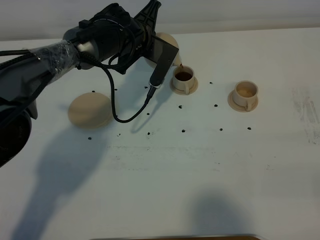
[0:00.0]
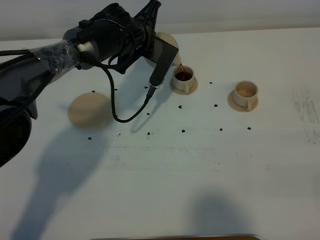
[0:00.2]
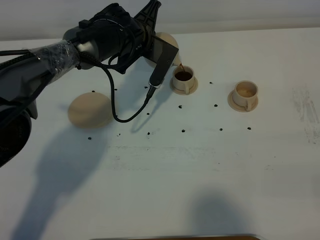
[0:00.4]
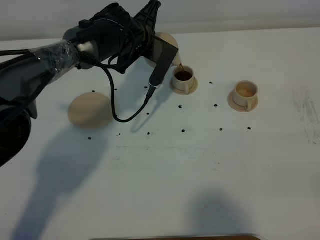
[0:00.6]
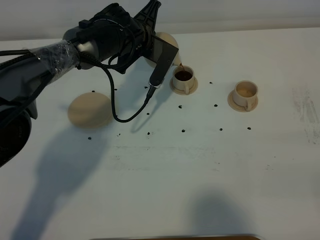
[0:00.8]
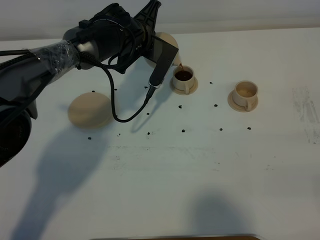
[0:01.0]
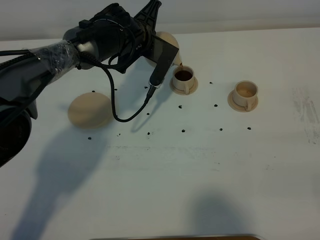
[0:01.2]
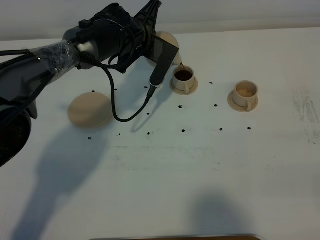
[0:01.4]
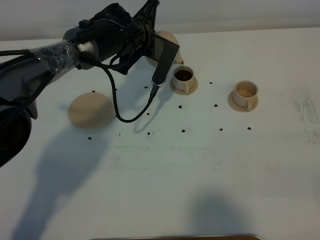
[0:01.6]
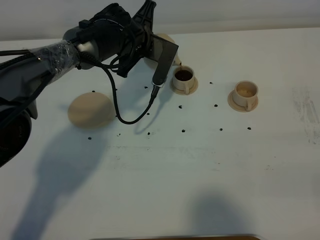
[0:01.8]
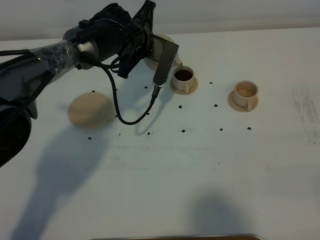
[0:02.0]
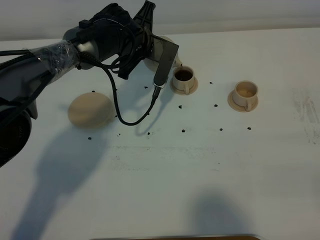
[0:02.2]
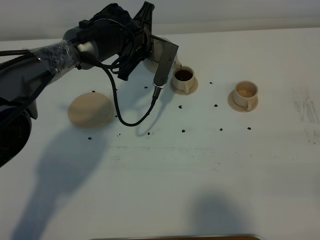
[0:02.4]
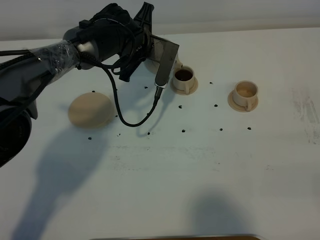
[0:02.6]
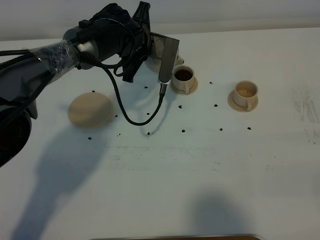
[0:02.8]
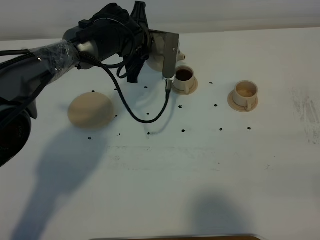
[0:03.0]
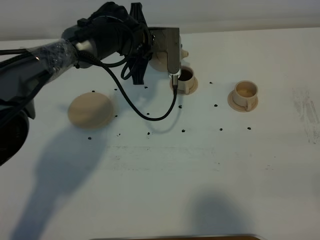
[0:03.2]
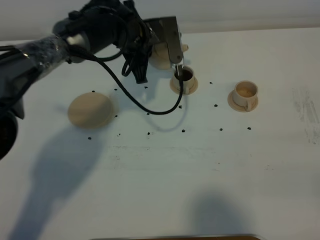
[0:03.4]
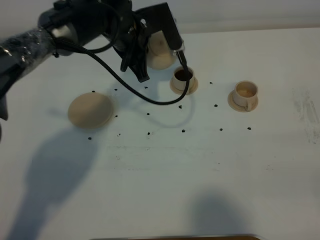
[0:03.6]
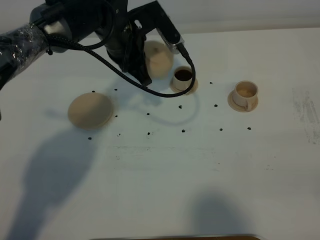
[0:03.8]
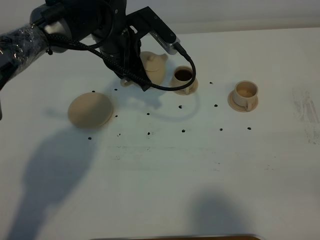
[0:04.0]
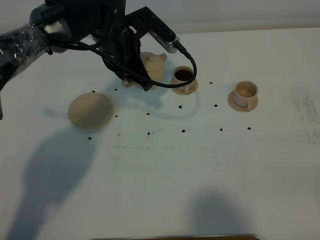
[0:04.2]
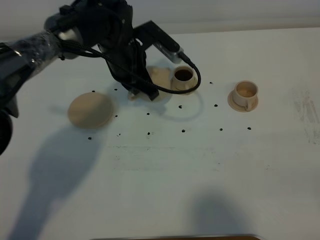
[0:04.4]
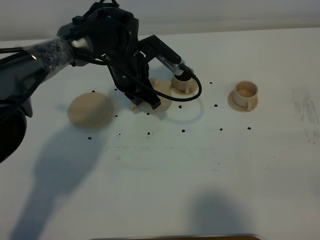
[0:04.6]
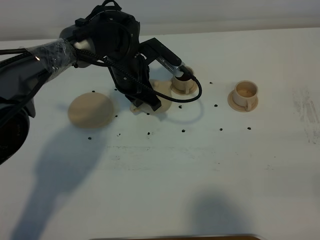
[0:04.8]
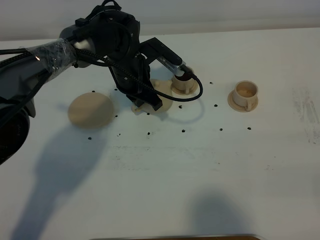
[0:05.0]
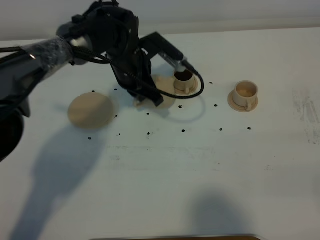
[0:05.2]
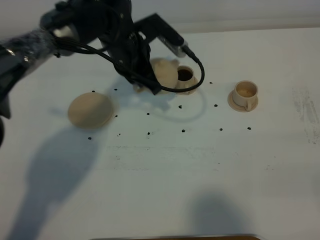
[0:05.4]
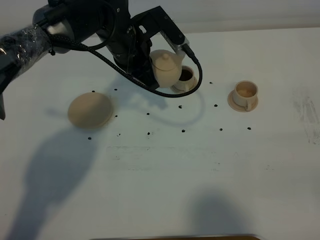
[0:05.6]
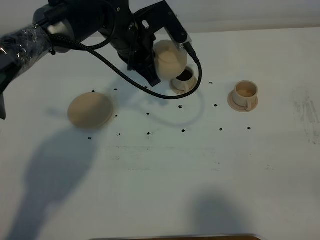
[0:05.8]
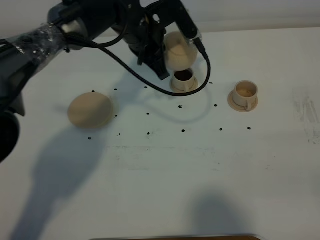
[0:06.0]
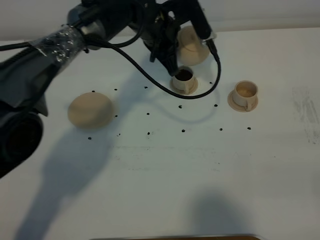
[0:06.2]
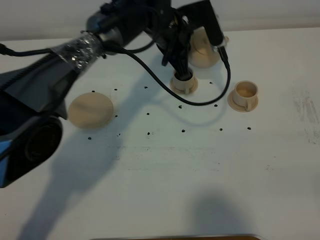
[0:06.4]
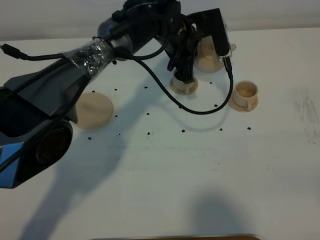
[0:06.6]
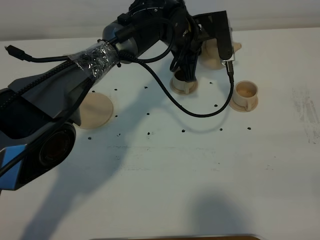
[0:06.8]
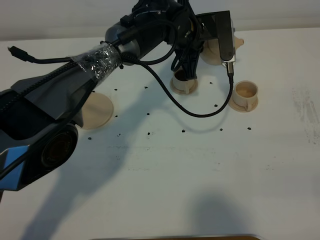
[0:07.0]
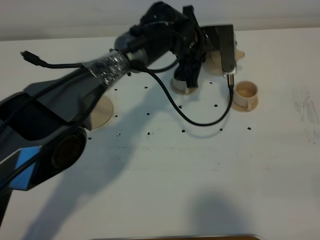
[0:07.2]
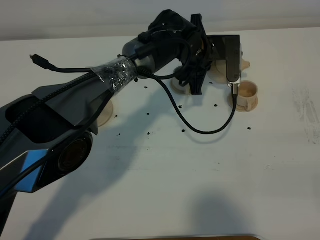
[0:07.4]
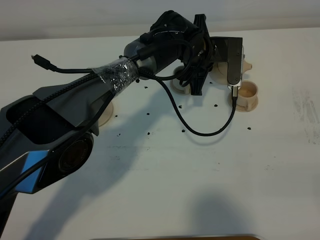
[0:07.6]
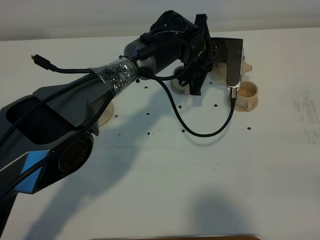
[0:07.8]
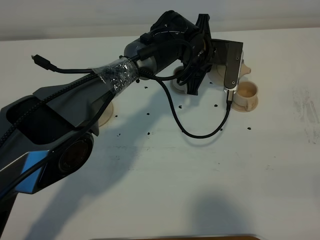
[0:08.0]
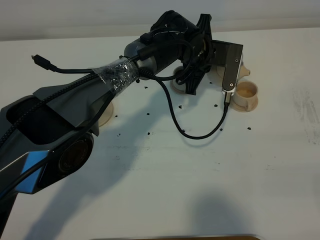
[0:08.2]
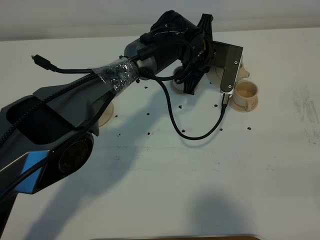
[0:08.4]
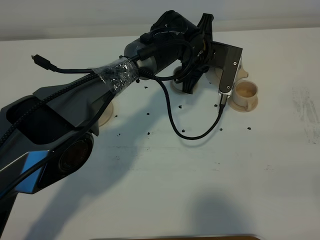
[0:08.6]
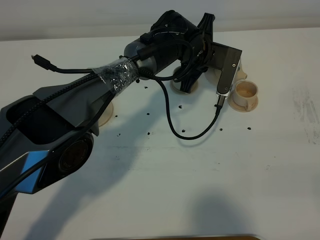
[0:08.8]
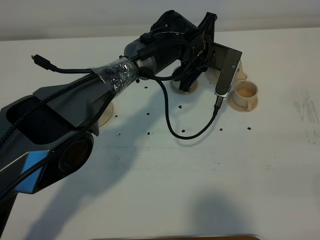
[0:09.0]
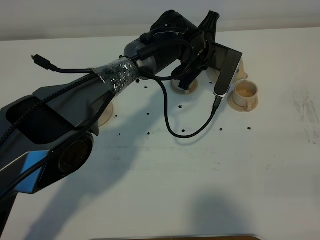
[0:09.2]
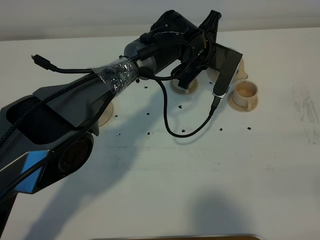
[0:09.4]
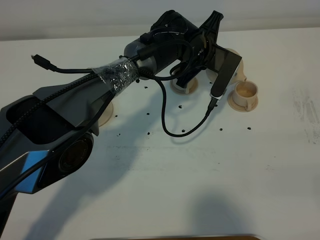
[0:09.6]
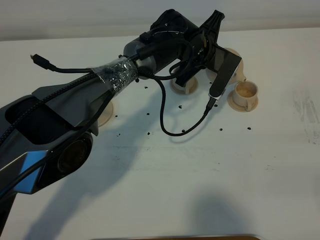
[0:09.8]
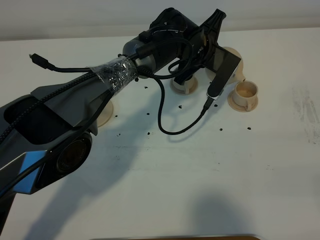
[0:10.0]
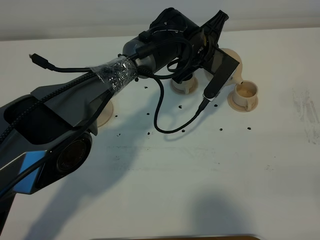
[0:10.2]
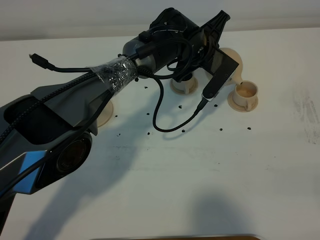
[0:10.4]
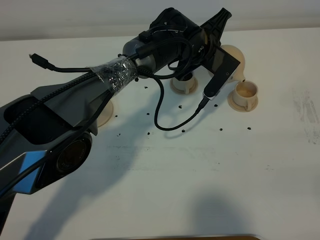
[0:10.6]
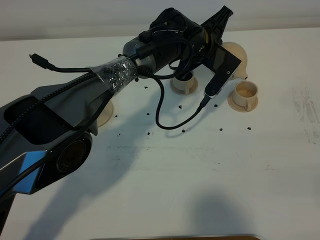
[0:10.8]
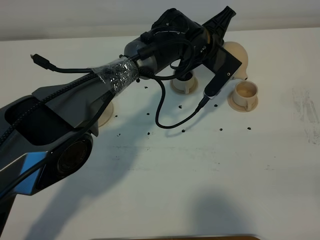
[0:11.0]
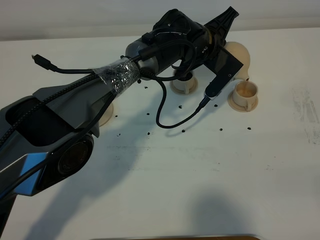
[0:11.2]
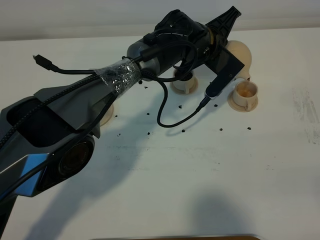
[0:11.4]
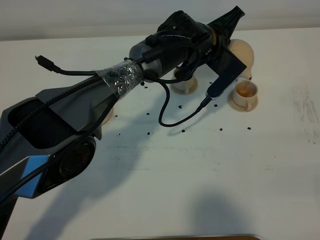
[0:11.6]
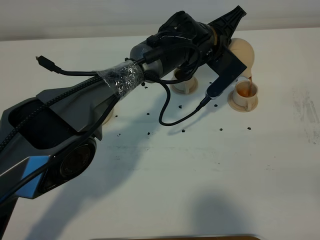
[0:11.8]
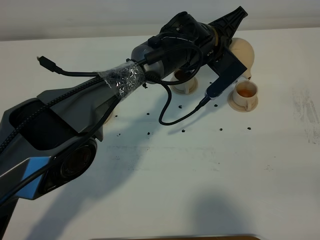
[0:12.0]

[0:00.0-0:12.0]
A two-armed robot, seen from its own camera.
Task of the whole recording: grasp the brown teapot and pour the tea into the two brown teacups one by one, put the brown teapot back in its original place.
0:00.0 to 0:01.6: Neither gripper changes place.
0:04.4 to 0:06.0: The left gripper shifts by about 5 cm.
0:06.0 to 0:07.6: The left gripper shifts some 10 cm to the right and downward.
0:07.6 to 0:09.0: The grippers make only small movements.
0:09.0 to 0:10.4: There are only small adjustments of the grippers.
0:10.4 to 0:12.0: The grippers make only small movements.

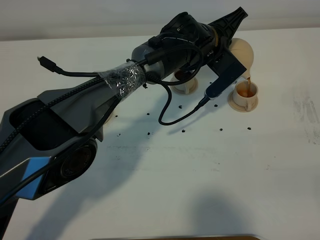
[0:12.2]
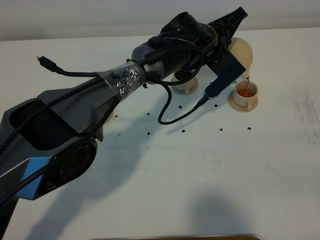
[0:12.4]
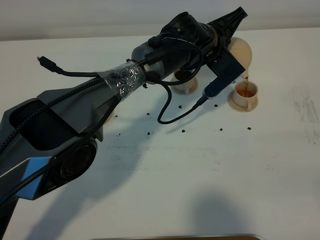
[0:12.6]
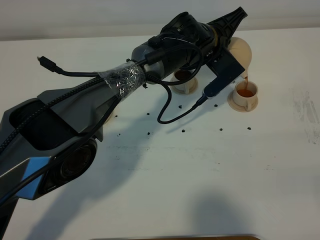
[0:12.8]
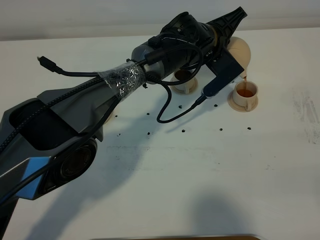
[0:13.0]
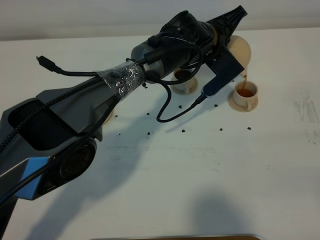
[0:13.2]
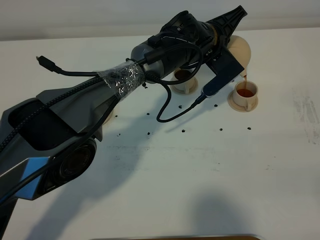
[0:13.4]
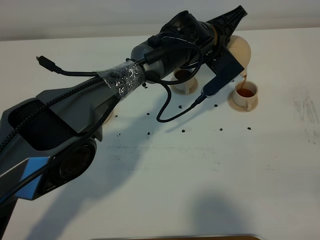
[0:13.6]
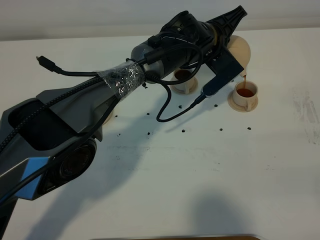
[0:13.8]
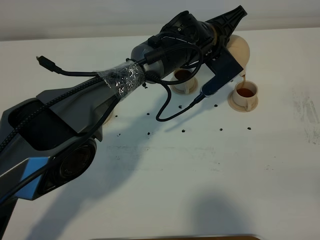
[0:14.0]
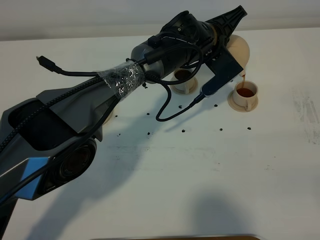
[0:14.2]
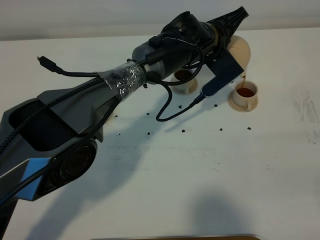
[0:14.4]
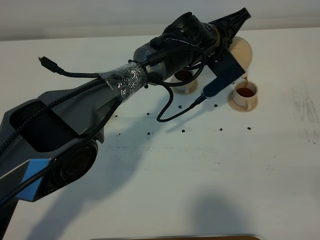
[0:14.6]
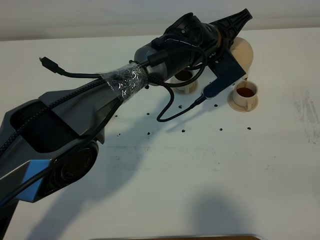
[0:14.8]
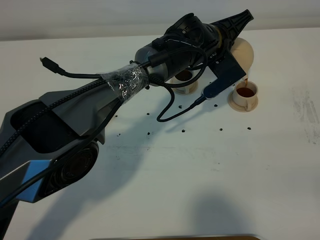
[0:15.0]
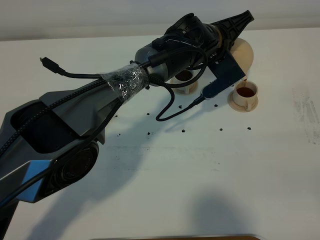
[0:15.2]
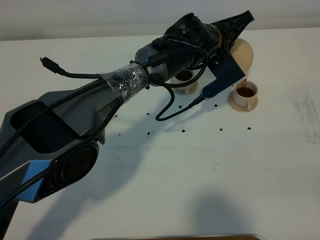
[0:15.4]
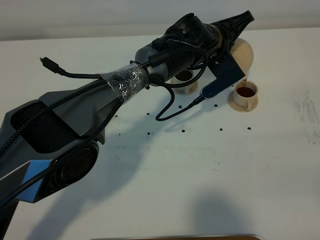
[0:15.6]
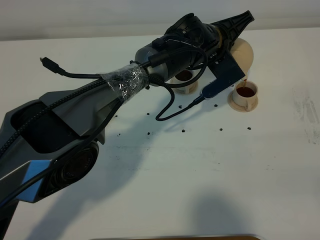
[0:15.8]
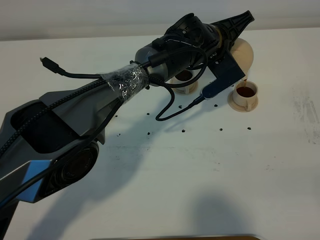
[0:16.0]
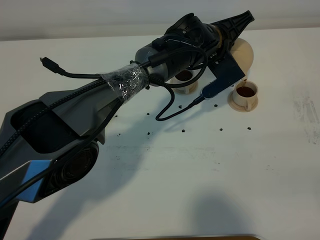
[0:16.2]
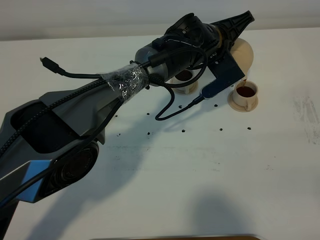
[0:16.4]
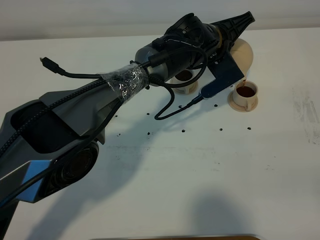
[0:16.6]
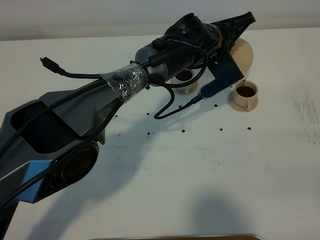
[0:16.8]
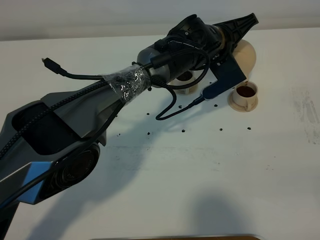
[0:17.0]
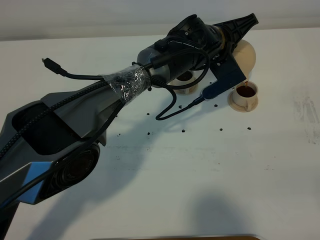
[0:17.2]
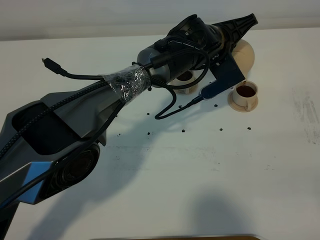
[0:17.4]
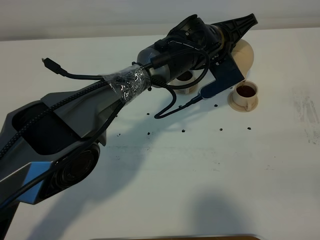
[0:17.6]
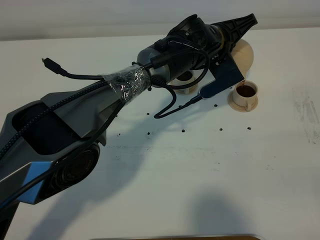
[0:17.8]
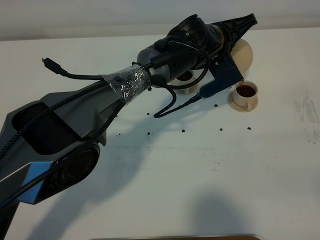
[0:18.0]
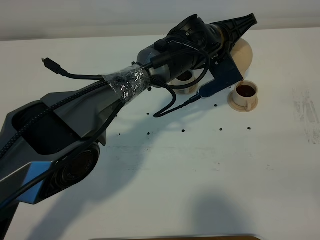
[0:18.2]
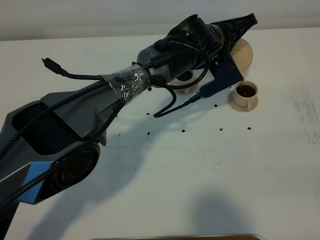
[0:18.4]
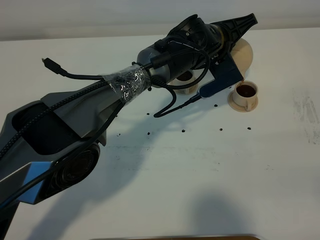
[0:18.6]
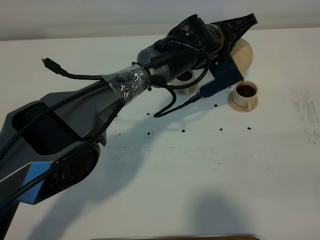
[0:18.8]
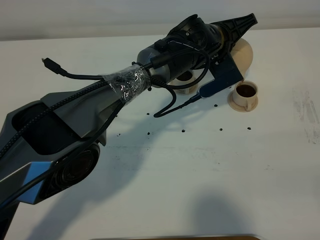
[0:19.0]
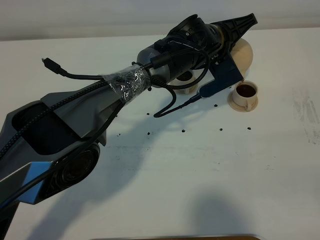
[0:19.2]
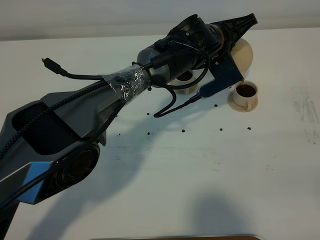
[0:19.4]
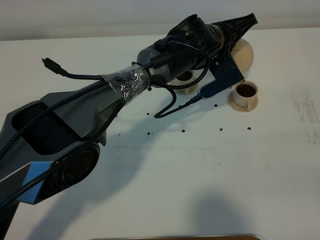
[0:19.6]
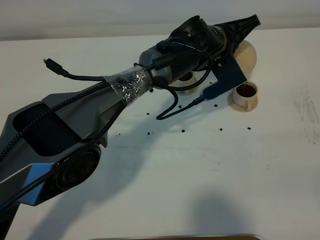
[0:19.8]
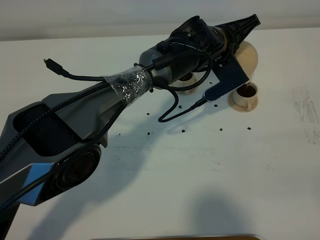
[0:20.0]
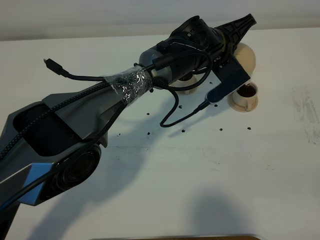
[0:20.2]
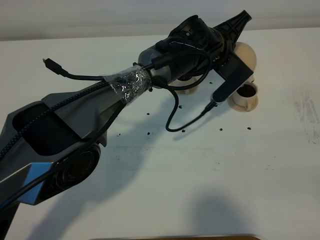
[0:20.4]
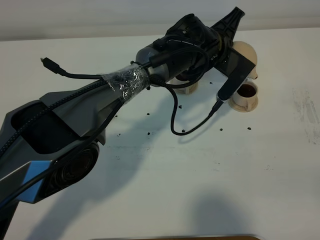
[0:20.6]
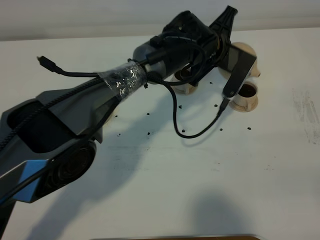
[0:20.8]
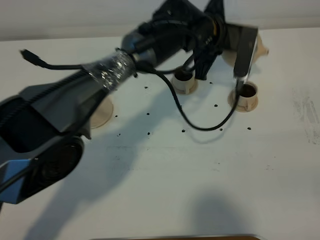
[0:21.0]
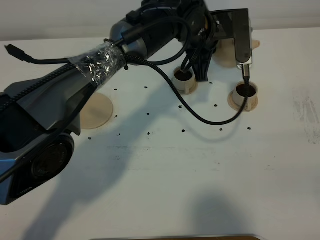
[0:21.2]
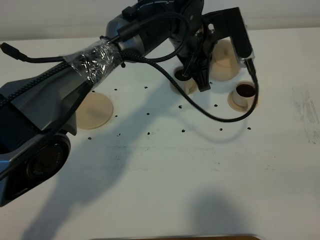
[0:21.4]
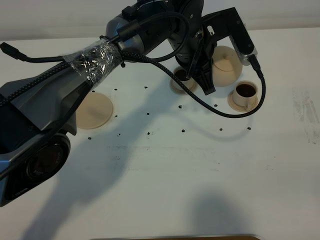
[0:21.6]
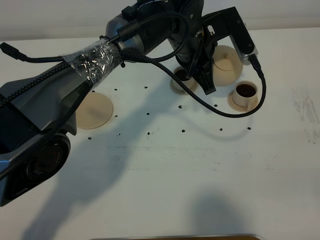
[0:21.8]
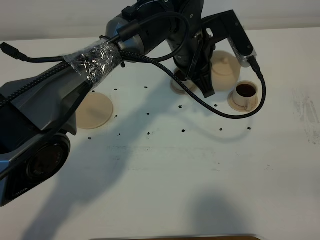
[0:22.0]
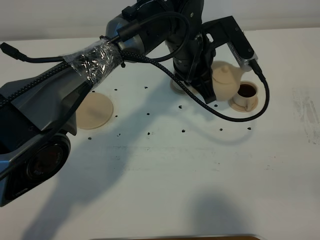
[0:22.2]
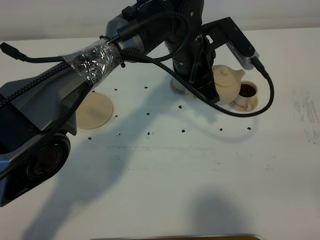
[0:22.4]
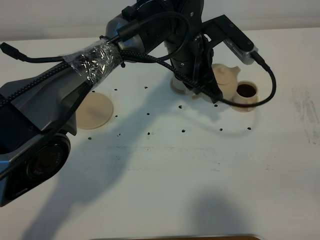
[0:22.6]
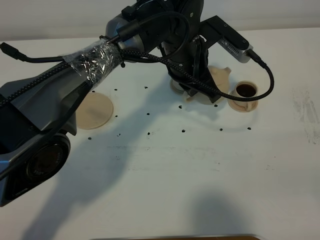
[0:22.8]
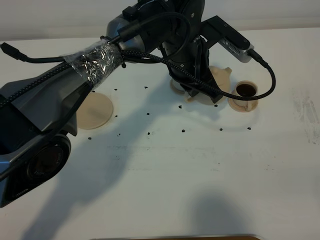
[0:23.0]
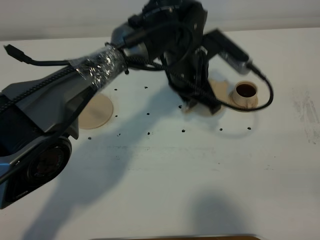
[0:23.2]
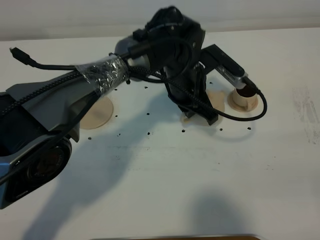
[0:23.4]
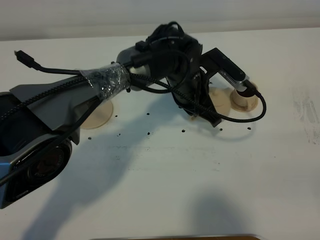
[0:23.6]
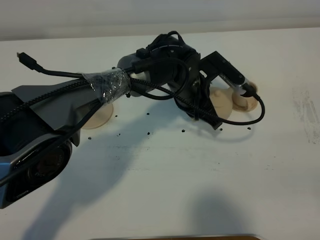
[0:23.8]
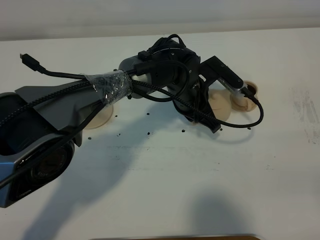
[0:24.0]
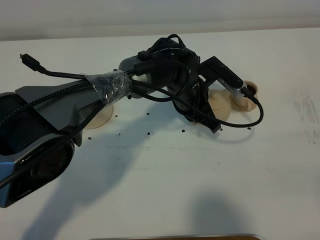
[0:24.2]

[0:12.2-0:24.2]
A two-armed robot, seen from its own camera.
Task of the whole recording: grasp the brown teapot and pour the tea into the two brown teacups one by one, put the brown teapot back in its original place.
Step, 0:12.2 to 0:20.6: Pour tea into the teacup with the left gripper.
0:12.2 to 0:13.8: Both grippers stay about where they are.
0:13.8 to 0:15.2: The grippers make only small movements.
0:15.2 to 0:16.6: Both grippers stay put.
0:16.6 to 0:19.8: Both grippers stay about where they are.
0:19.8 to 0:21.2: The left gripper shifts by some 5 cm.
0:22.6 to 0:24.2: The left gripper goes about 10 cm downward.
